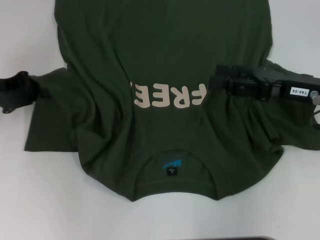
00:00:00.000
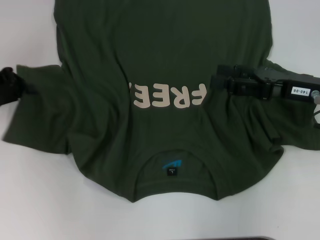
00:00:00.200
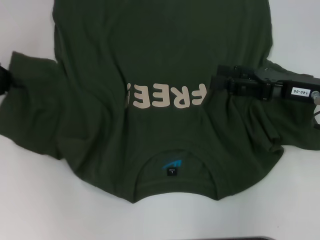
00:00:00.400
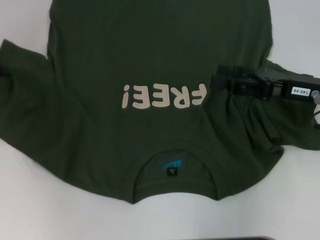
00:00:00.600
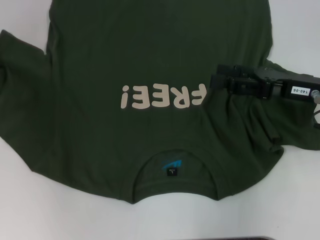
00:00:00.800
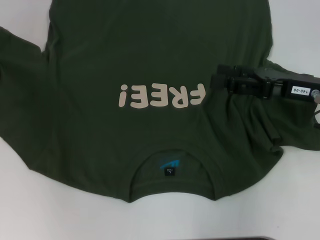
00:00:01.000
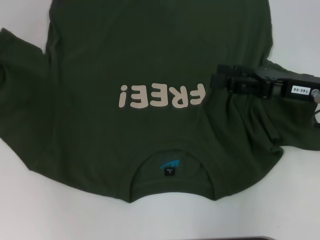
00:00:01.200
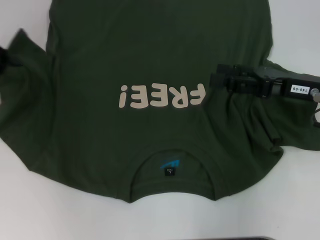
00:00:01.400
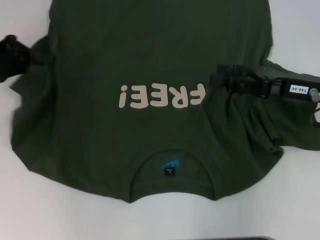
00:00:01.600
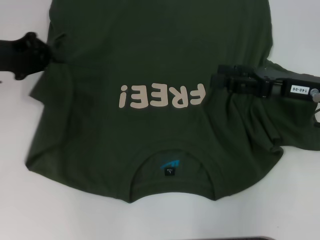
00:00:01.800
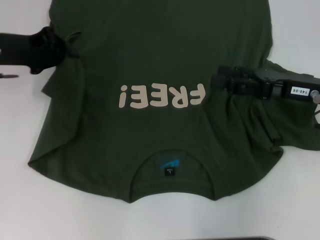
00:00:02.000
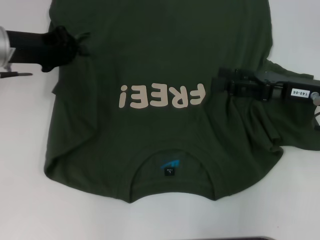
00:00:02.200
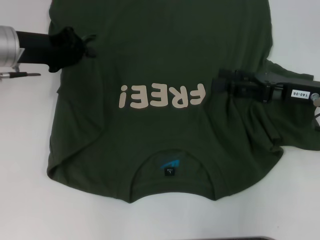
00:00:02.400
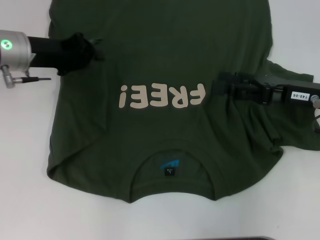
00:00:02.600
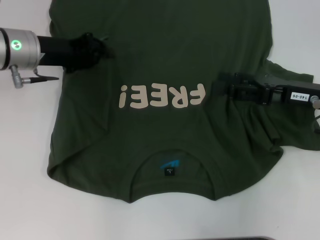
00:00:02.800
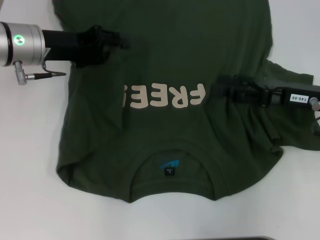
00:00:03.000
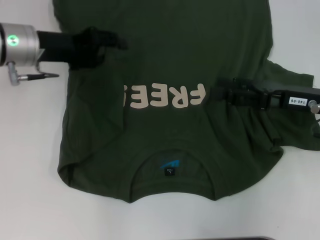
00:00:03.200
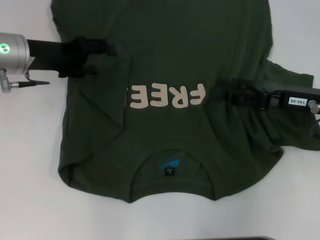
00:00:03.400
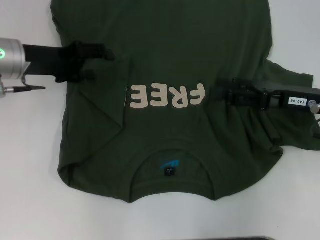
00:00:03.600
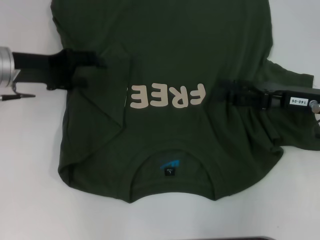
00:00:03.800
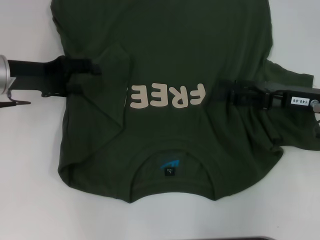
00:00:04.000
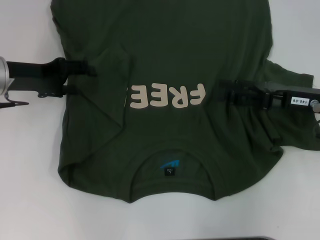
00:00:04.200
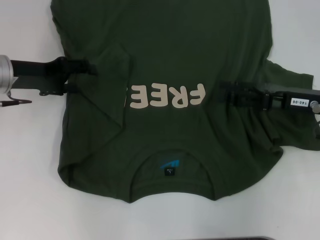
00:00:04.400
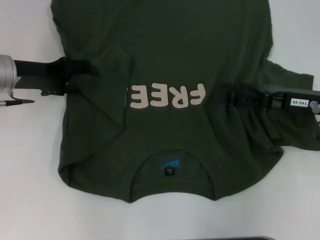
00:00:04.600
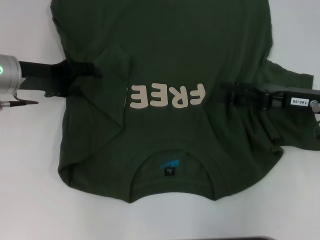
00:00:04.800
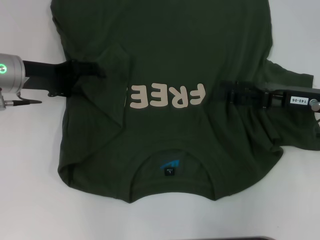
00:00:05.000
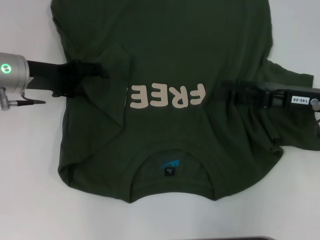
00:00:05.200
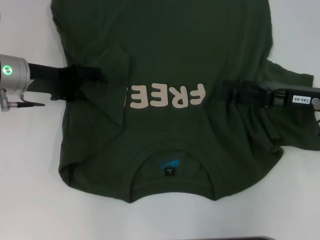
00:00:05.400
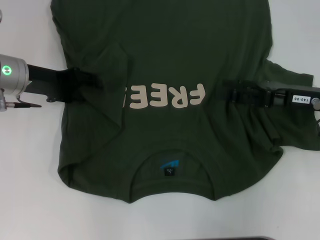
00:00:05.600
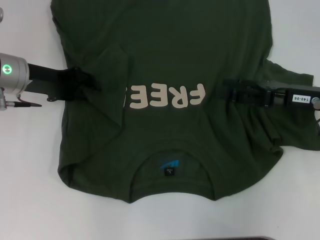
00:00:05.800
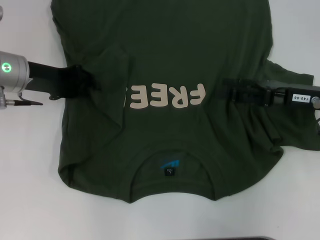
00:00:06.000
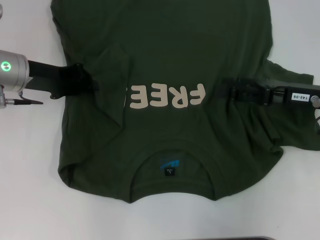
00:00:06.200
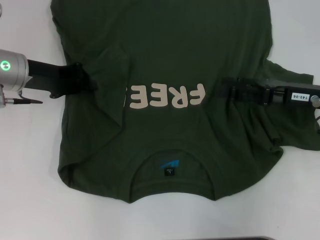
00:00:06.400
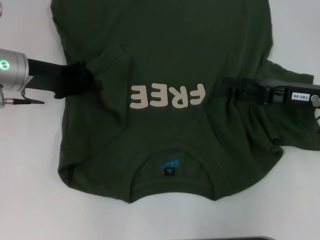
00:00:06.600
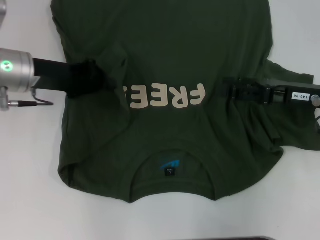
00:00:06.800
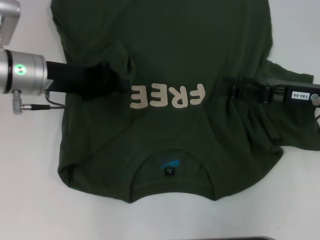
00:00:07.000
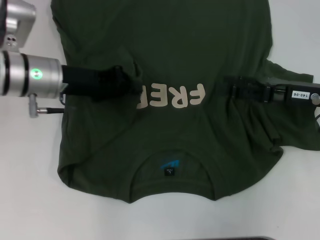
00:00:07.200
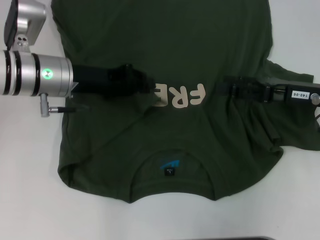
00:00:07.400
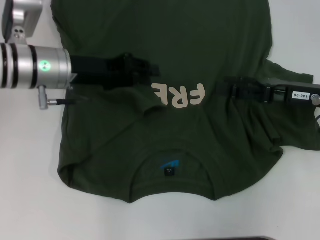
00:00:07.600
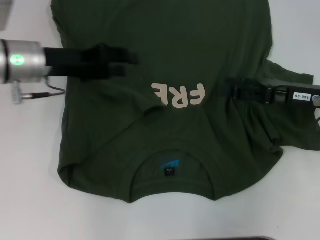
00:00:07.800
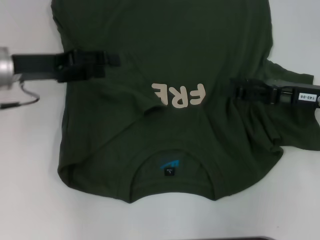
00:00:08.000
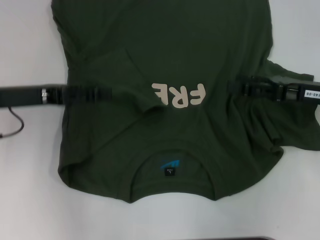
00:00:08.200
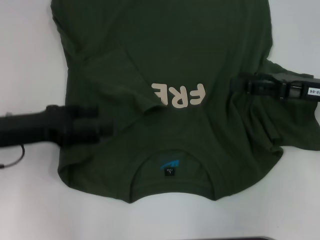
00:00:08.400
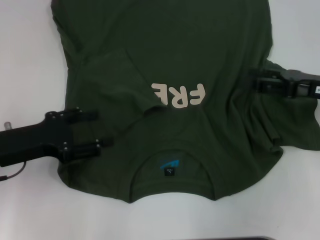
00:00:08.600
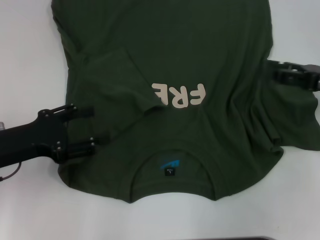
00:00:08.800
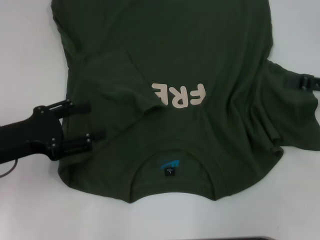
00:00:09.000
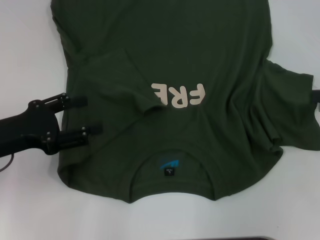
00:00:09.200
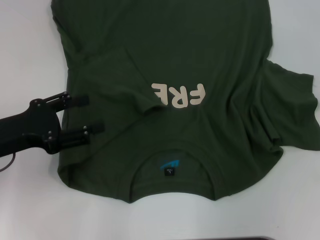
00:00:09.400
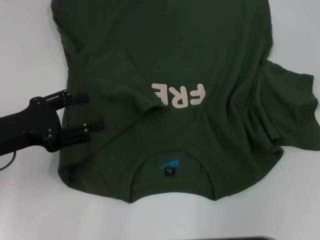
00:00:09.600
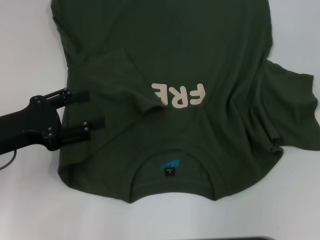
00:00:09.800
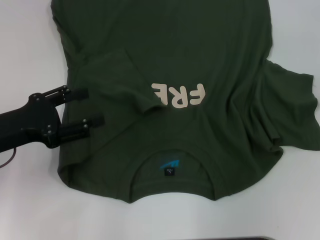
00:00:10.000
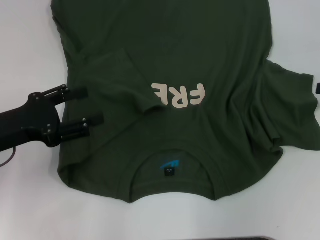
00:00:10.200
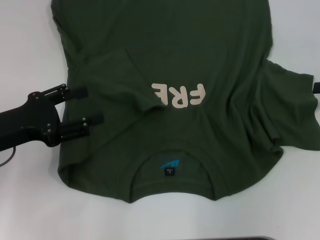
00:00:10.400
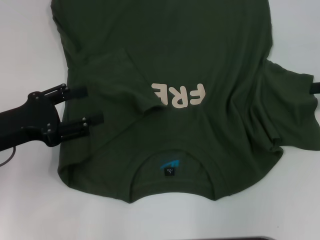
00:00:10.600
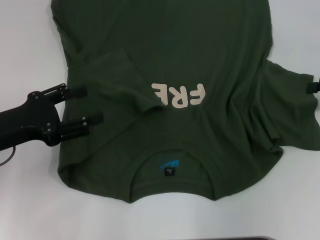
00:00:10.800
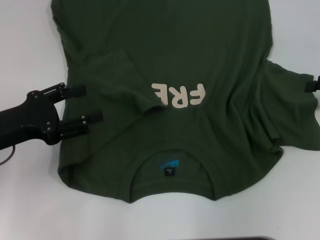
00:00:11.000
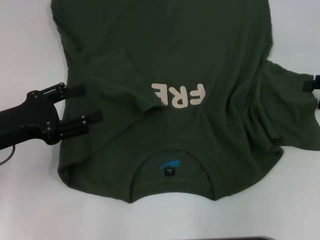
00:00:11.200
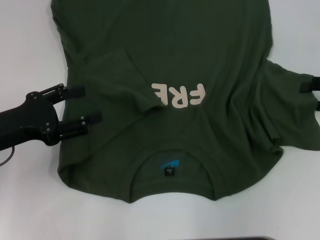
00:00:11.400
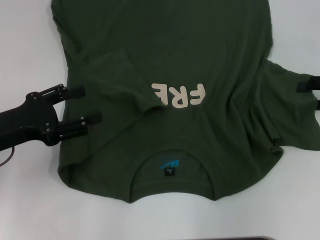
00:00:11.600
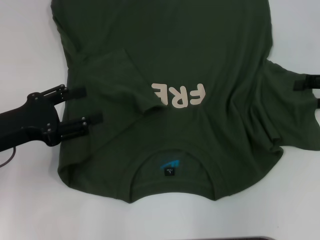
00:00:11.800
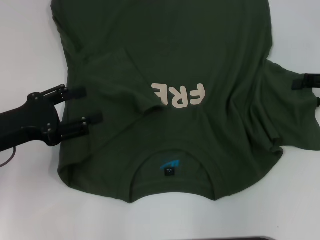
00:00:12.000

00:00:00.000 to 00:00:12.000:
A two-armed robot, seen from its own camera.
Step, 00:00:00.000 to 00:00:07.400: Fold the bottom left sleeve with your left hand.
00:00:01.600 to 00:00:03.000: The left gripper heads to the right, covering about 10 cm.
00:00:03.000 to 00:00:04.400: The left gripper shifts by approximately 5 cm, and opens.
00:00:04.400 to 00:00:06.000: The grippers move only a little.
00:00:06.000 to 00:00:07.600: The left gripper heads to the right, covering approximately 5 cm, and closes its fingers.
00:00:07.600 to 00:00:09.000: The left gripper moves backward and to the left, roughly 15 cm, and opens. Meanwhile the right gripper moves to the right, some 10 cm.

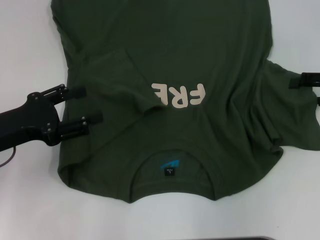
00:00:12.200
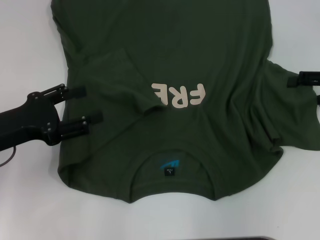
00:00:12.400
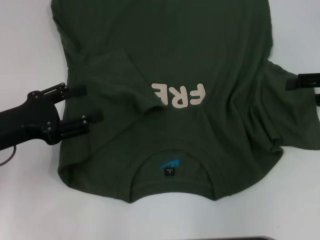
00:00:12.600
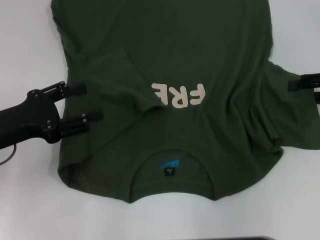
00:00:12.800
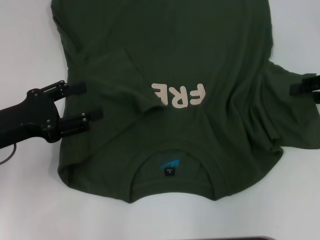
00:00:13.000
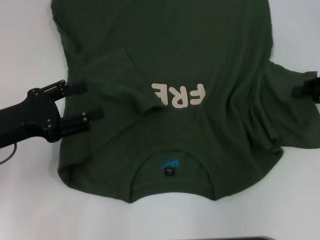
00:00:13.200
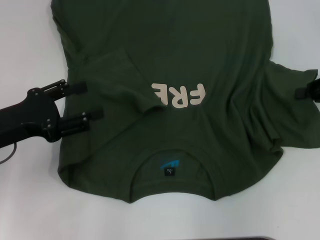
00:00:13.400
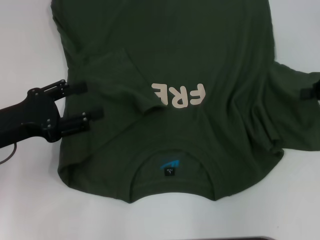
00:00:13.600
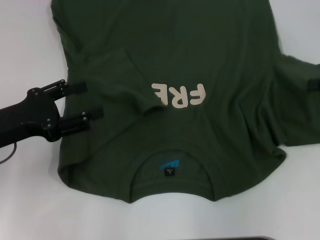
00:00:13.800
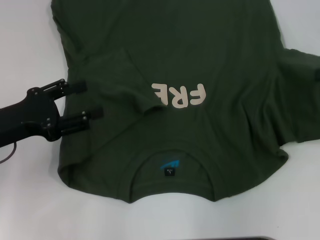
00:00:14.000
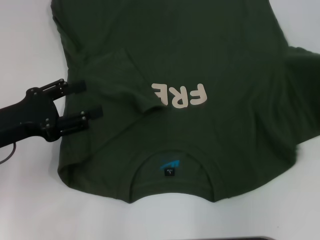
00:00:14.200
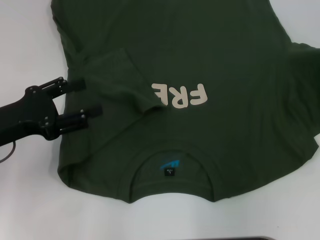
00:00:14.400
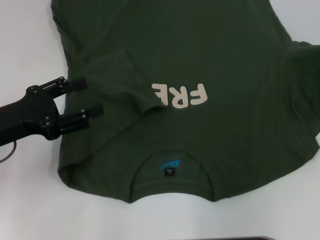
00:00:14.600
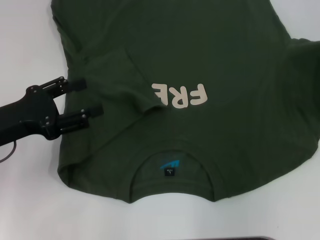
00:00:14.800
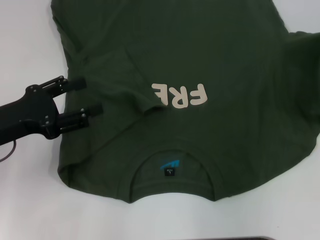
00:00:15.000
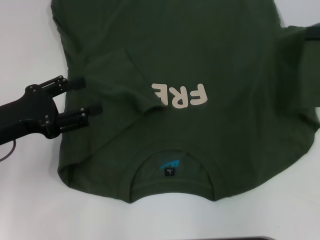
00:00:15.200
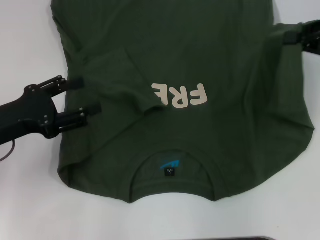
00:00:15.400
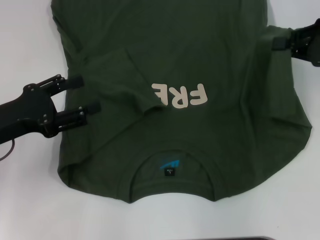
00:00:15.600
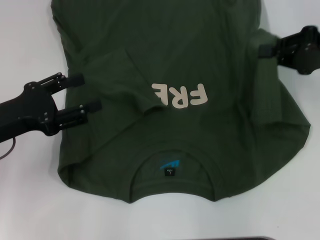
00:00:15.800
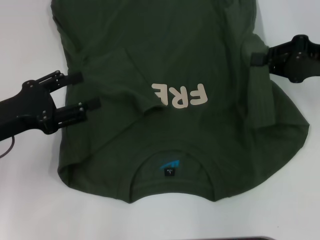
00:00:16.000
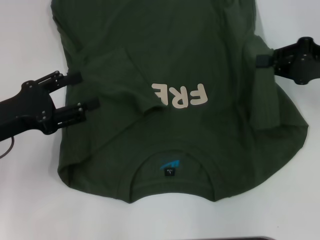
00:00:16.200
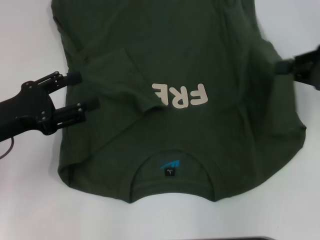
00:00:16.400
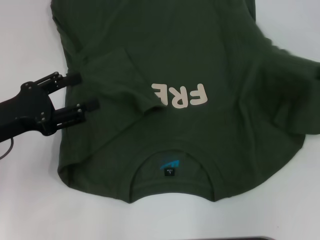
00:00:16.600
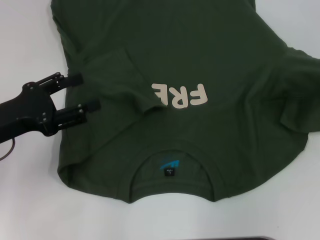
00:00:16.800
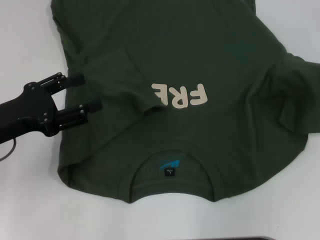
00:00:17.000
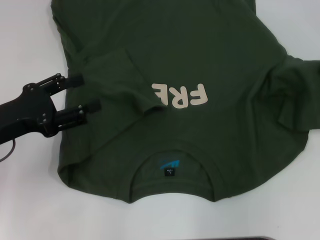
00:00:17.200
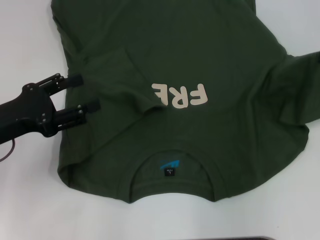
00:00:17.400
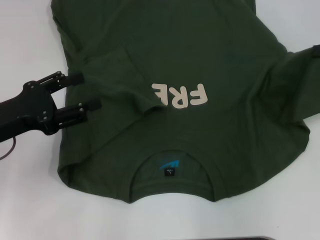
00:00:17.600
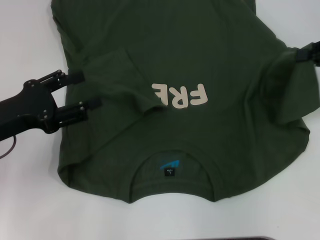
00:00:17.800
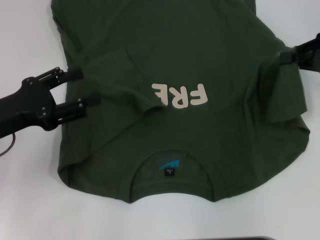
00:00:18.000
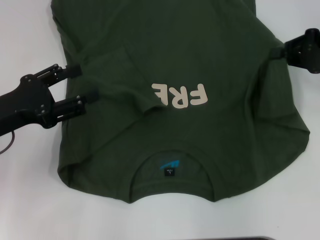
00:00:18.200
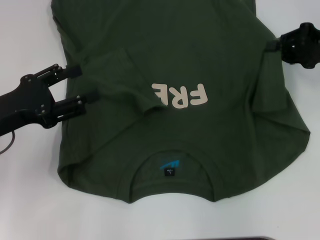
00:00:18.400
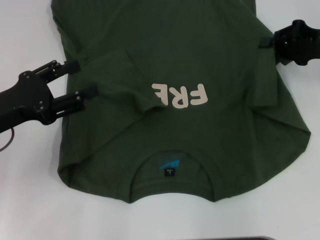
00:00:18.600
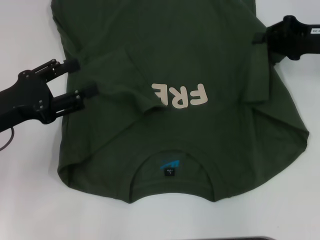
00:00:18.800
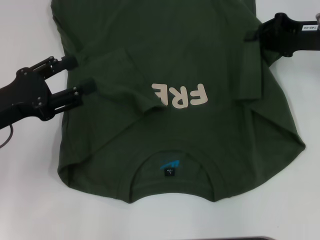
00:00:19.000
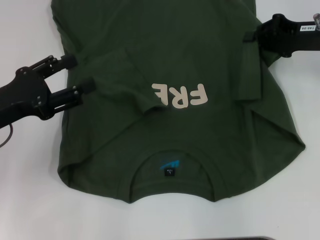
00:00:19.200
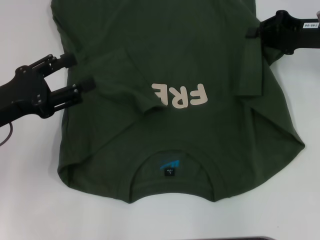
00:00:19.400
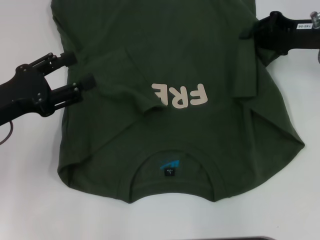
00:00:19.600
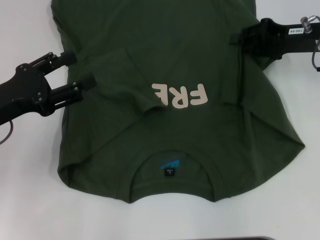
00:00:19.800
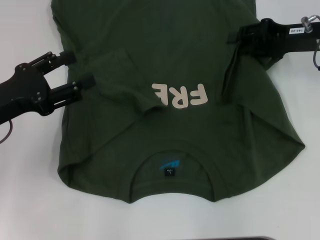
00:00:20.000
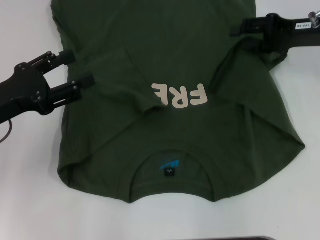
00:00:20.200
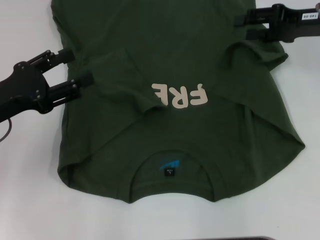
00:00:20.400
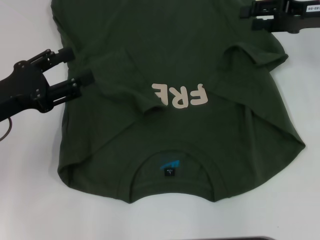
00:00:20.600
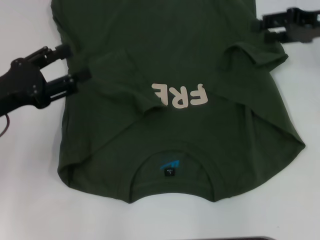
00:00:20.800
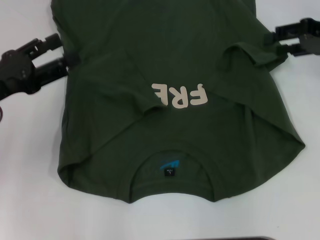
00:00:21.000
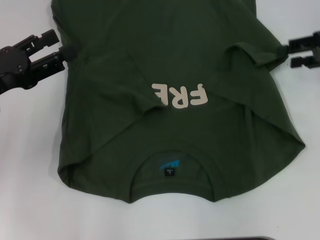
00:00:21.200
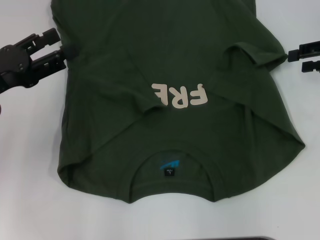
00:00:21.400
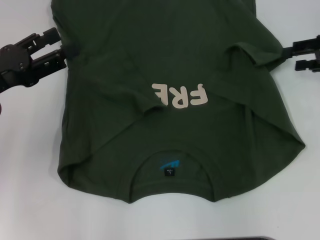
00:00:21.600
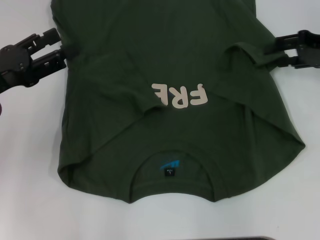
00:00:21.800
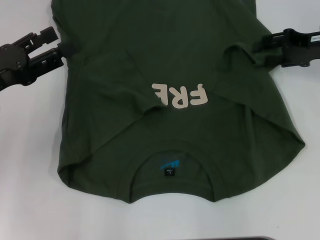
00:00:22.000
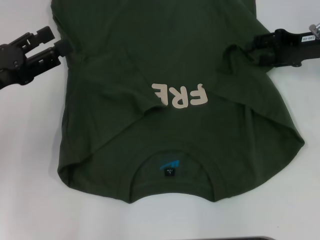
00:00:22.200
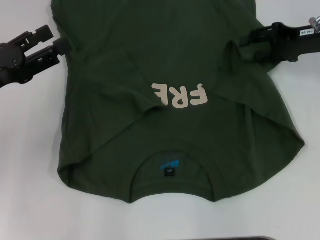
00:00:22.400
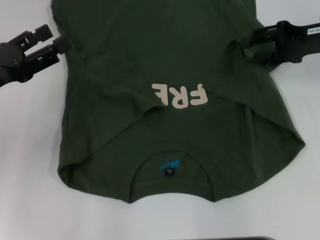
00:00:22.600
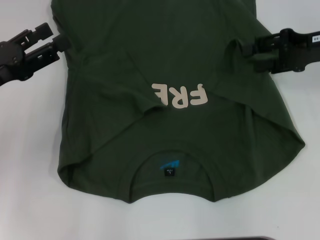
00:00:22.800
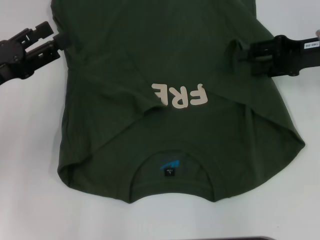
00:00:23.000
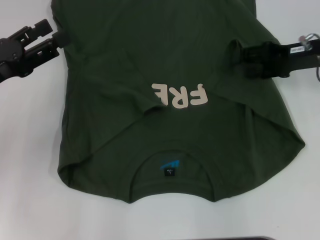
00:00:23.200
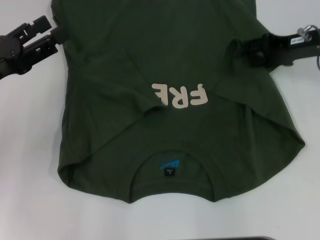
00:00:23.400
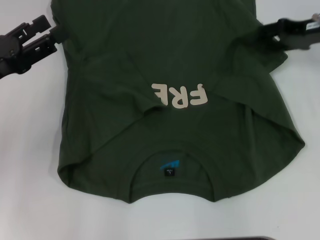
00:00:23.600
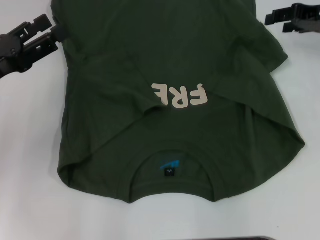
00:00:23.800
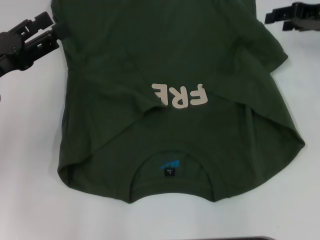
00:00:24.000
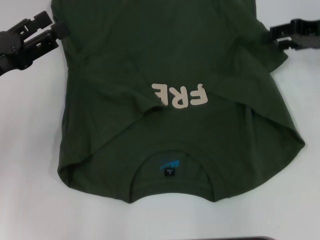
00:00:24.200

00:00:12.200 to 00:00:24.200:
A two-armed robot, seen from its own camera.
Step, 00:00:12.200 to 00:00:23.600: Fold the bottom right sleeve with your right hand.
00:00:12.200 to 00:00:13.800: The right gripper closes.
00:00:13.800 to 00:00:15.200: The right gripper moves about 5 cm.
00:00:15.200 to 00:00:16.600: The right gripper moves approximately 5 cm to the left and comes back.
00:00:16.600 to 00:00:18.200: The right gripper heads to the left and forward, covering roughly 10 cm.
00:00:18.200 to 00:00:19.800: The right gripper heads to the left, covering some 5 cm.
00:00:19.800 to 00:00:21.200: The right gripper goes roughly 5 cm to the right, and opens up.
00:00:21.200 to 00:00:22.600: The right gripper shifts by some 5 cm.
